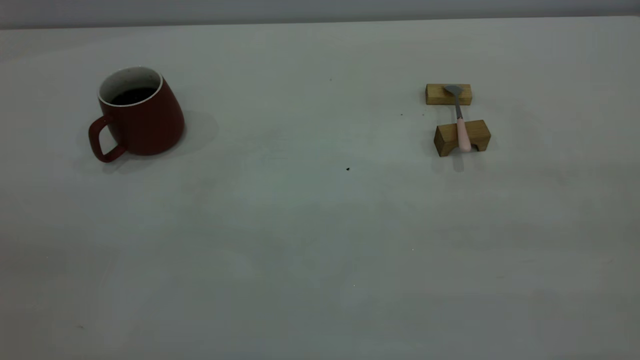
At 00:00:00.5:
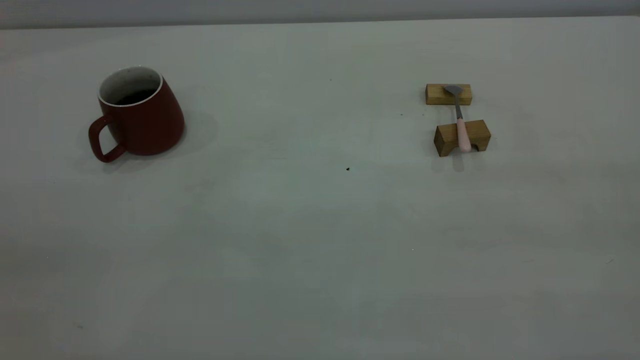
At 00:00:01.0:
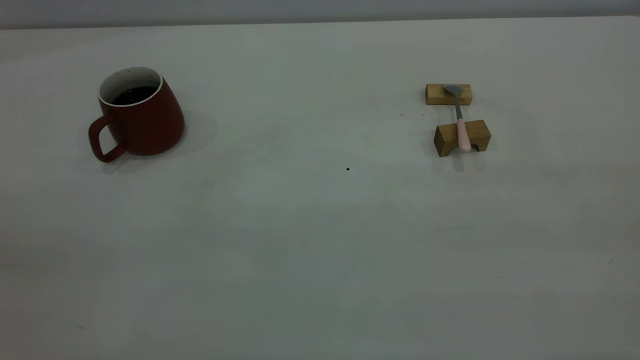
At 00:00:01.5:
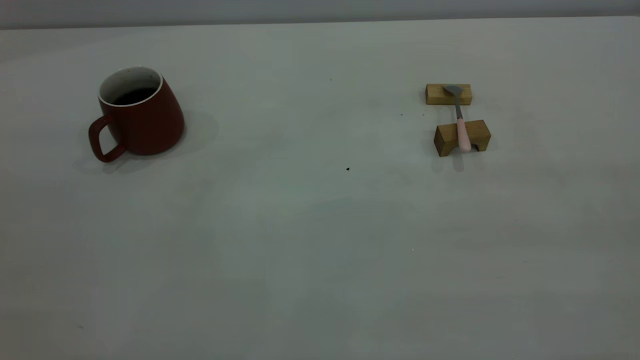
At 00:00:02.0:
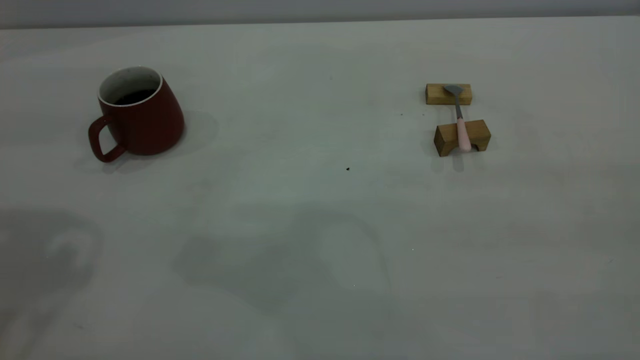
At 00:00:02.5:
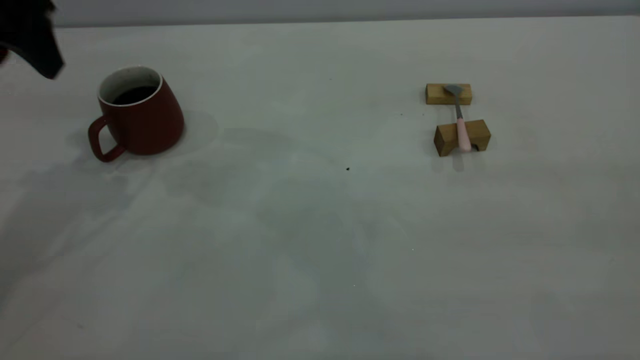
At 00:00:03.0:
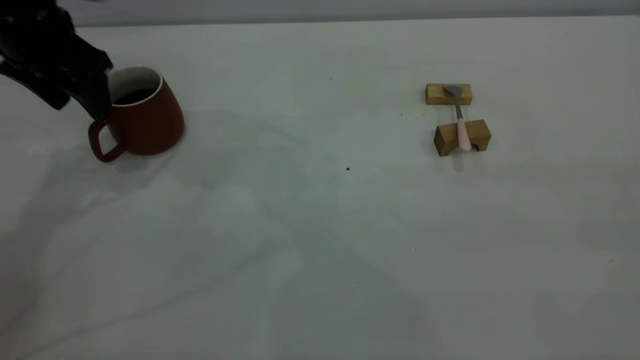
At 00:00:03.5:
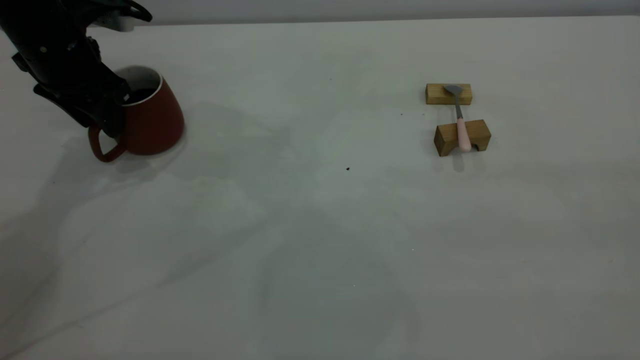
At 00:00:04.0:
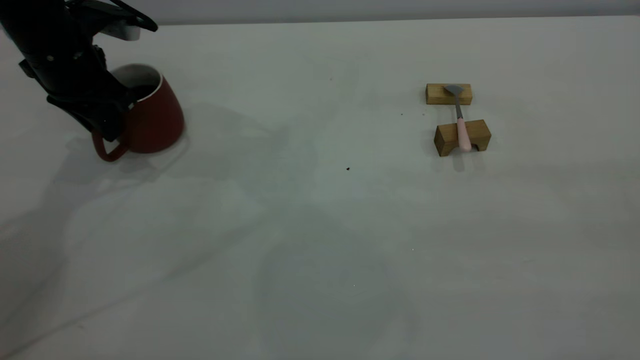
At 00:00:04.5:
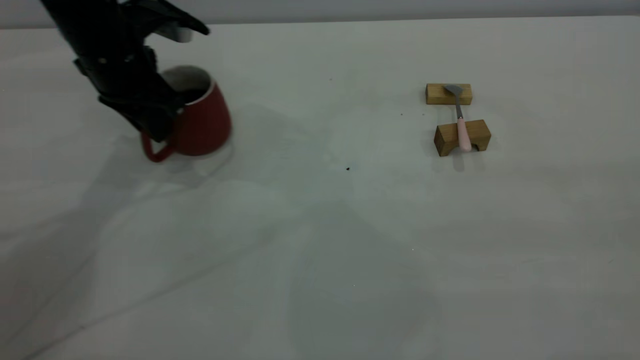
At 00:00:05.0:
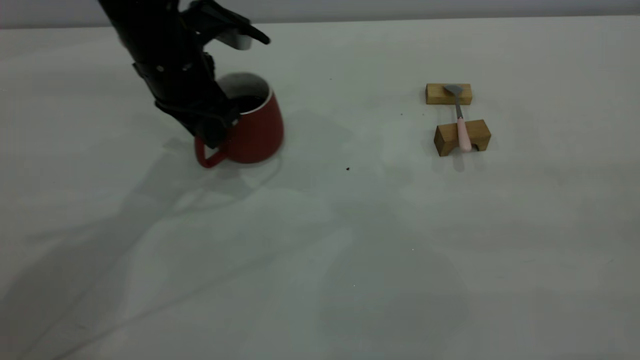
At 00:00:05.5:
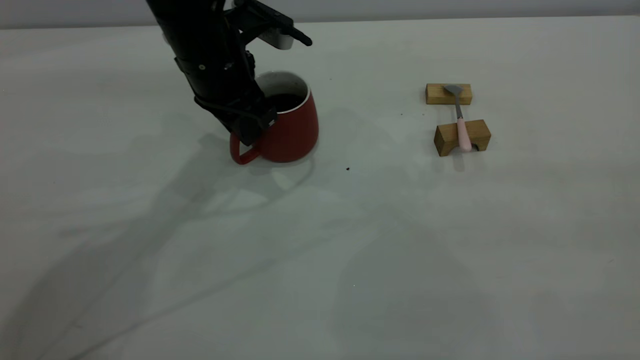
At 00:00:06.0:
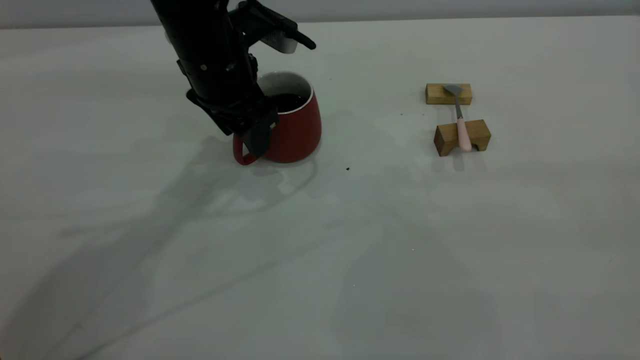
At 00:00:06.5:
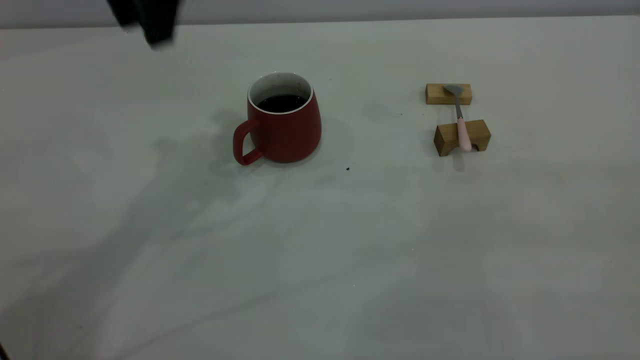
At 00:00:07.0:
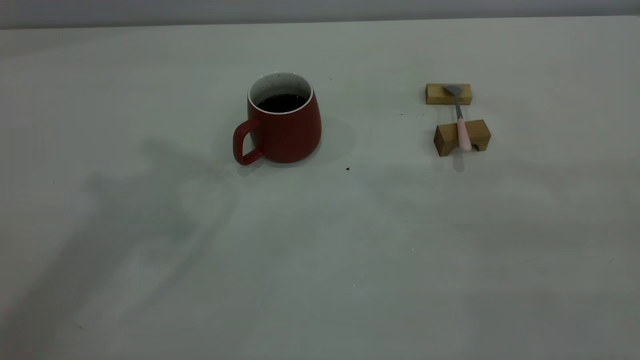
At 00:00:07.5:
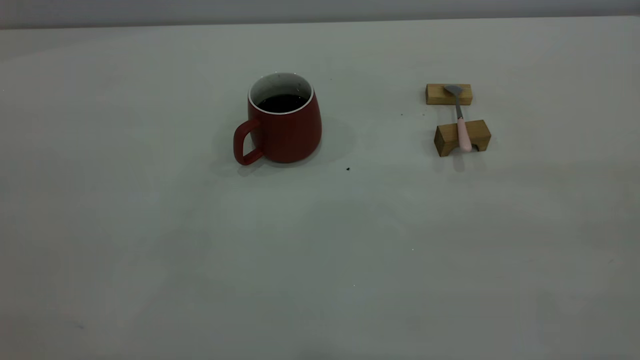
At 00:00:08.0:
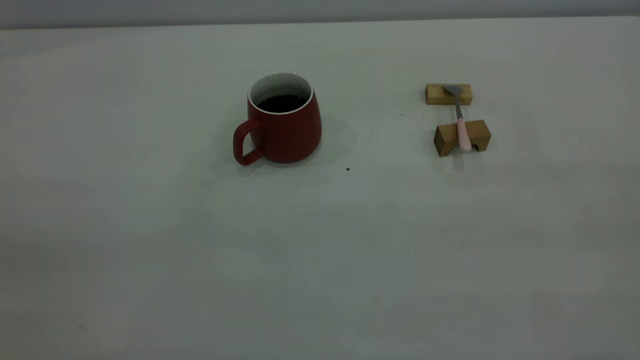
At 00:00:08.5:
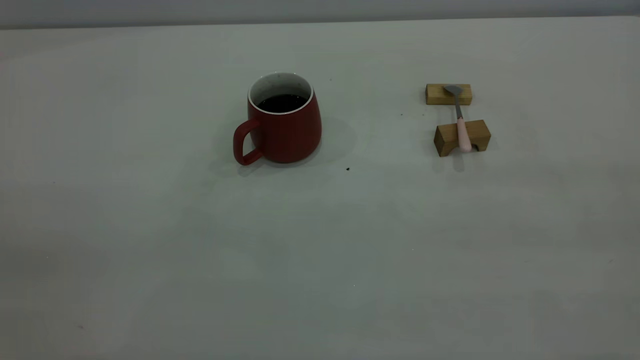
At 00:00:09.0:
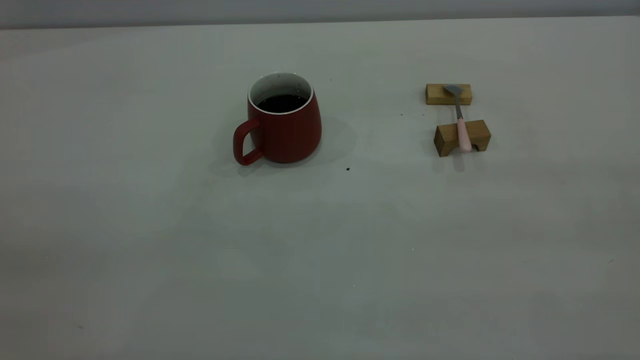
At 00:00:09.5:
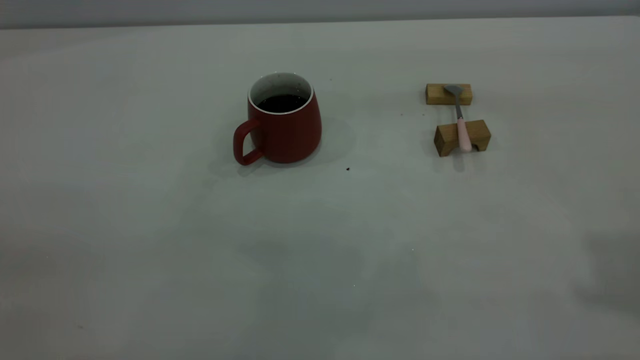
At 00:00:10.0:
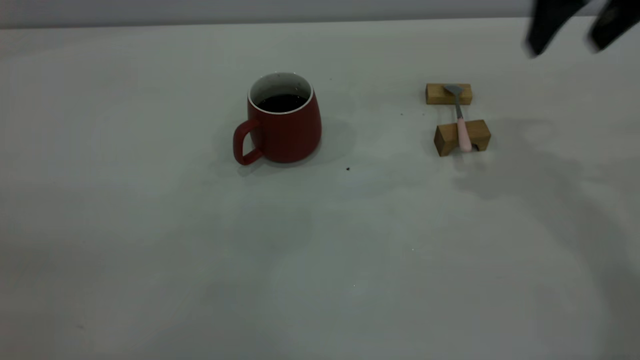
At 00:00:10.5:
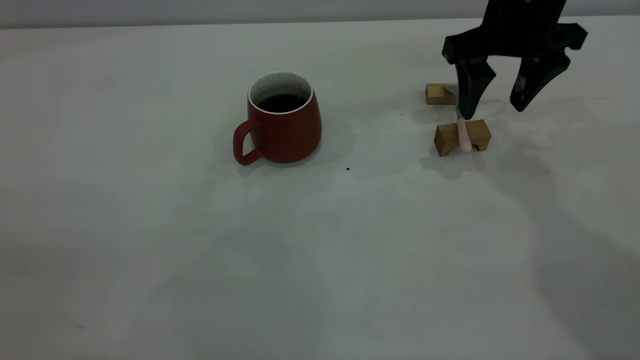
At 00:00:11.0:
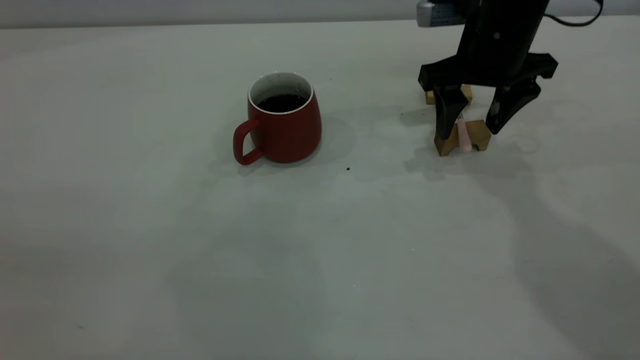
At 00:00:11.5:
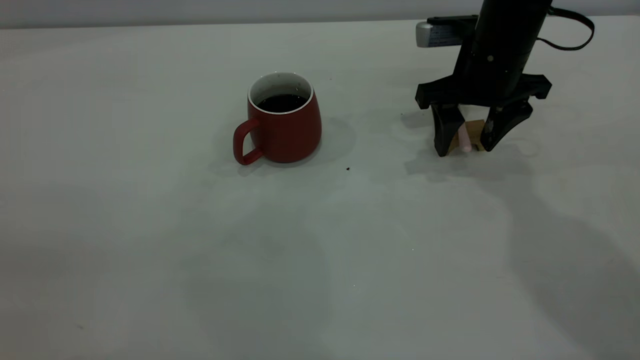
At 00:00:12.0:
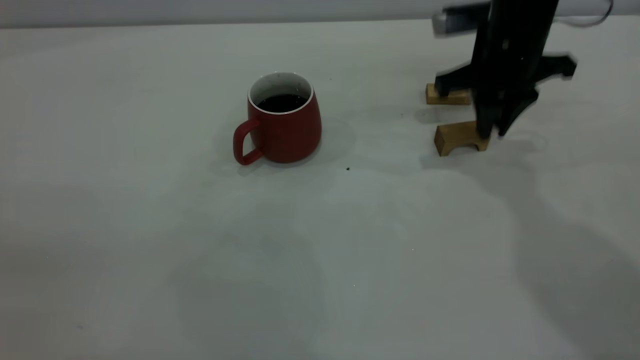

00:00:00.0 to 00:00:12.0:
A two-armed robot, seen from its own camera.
Step, 00:00:00.0 to 00:00:06.0: Move the cup with coffee to the center of view.
Step, 00:00:06.5 to 00:00:12.0: Pick up the spoon.
00:00:02.0 to 00:00:04.0: The left gripper travels downward and forward by approximately 25 cm, and closes up.
00:00:04.0 to 00:00:06.0: The left gripper is displaced to the right by some 15 cm, and opens up.
00:00:06.0 to 00:00:08.0: The left gripper is displaced backward, upward and to the left by approximately 50 cm, and closes up.
00:00:08.0 to 00:00:10.0: The right gripper shifts some 35 cm forward, and opens its fingers.
00:00:10.0 to 00:00:12.0: The right gripper moves downward, some 10 cm, and closes up.

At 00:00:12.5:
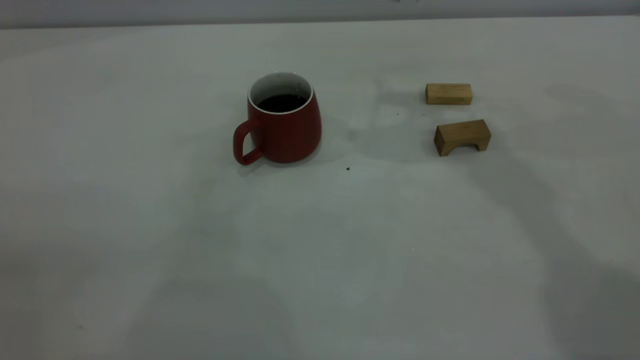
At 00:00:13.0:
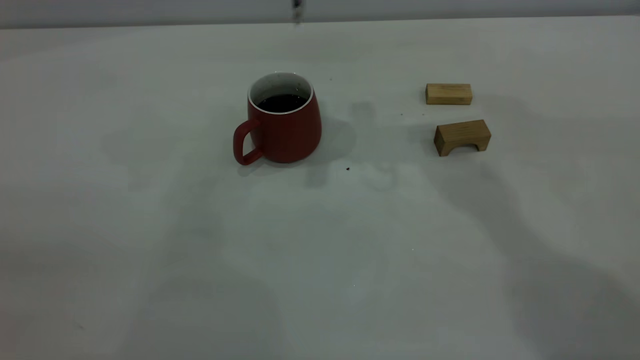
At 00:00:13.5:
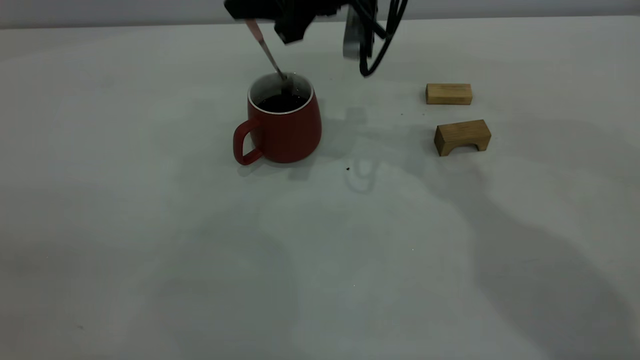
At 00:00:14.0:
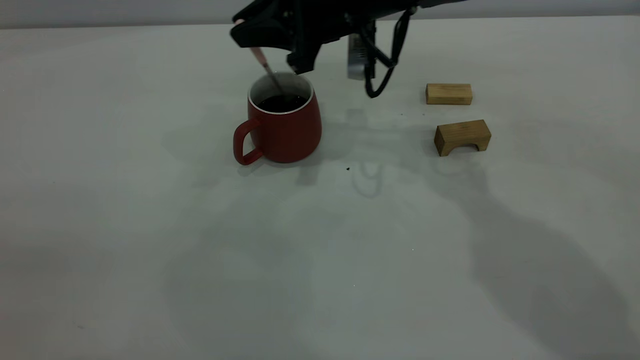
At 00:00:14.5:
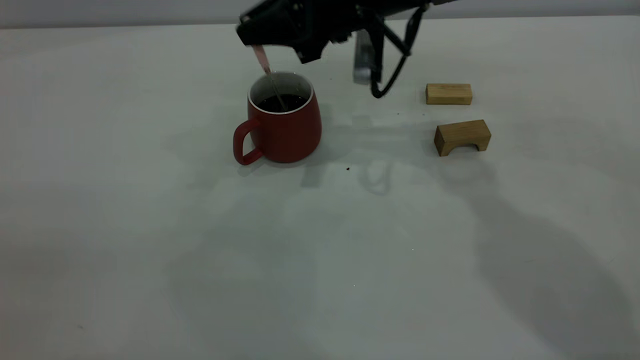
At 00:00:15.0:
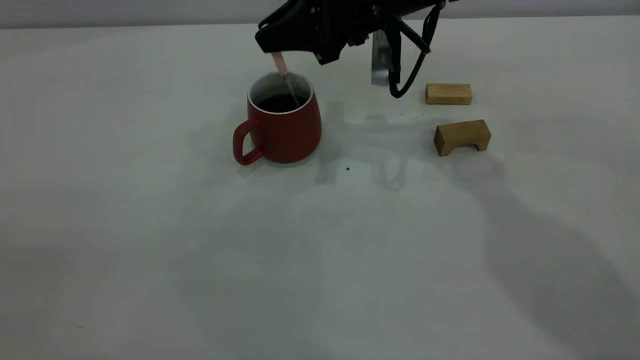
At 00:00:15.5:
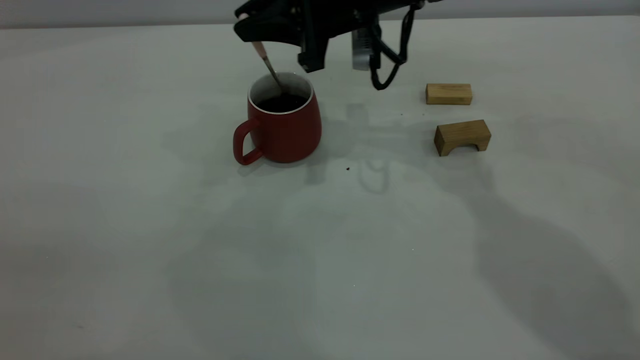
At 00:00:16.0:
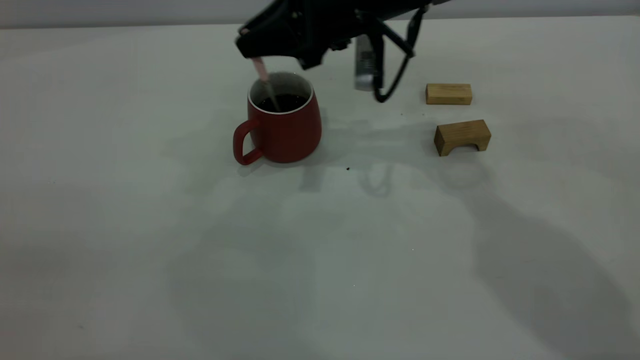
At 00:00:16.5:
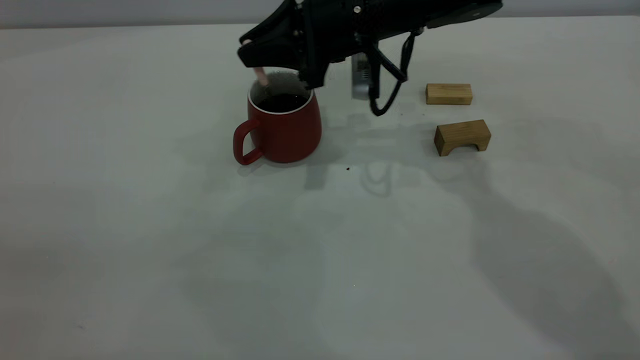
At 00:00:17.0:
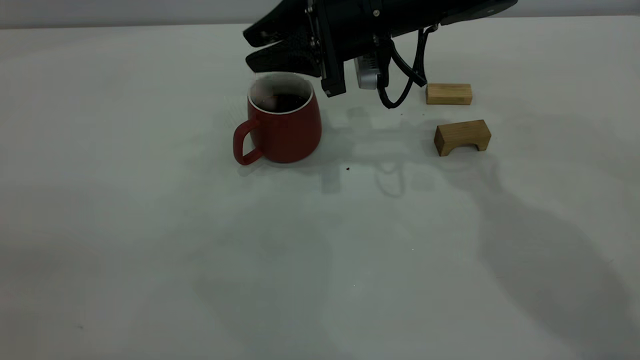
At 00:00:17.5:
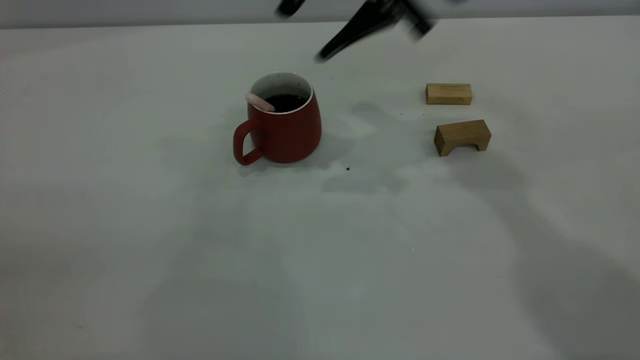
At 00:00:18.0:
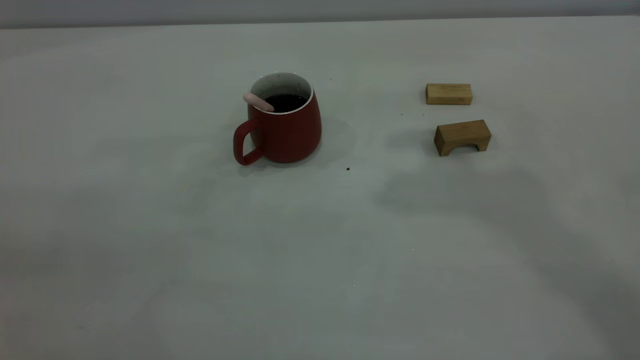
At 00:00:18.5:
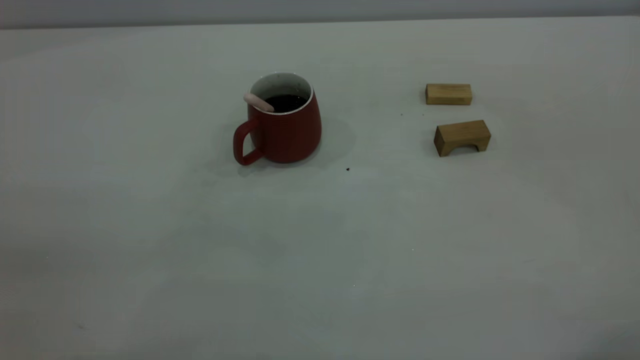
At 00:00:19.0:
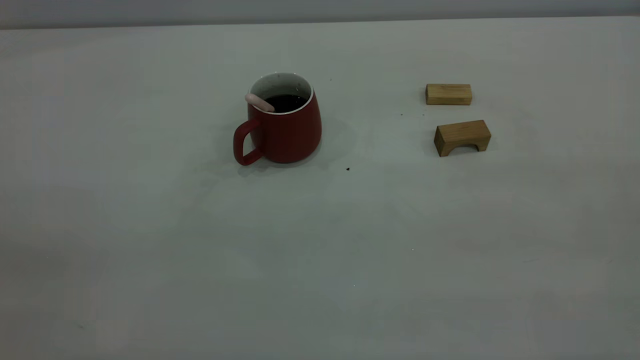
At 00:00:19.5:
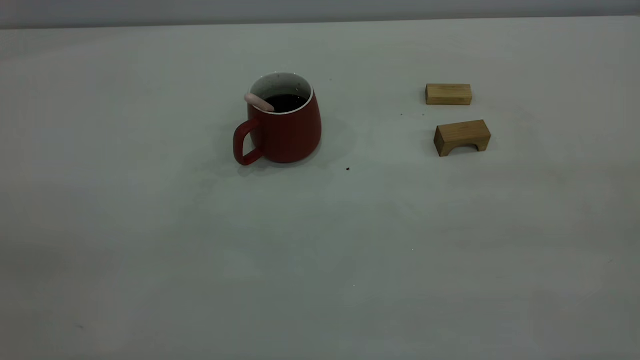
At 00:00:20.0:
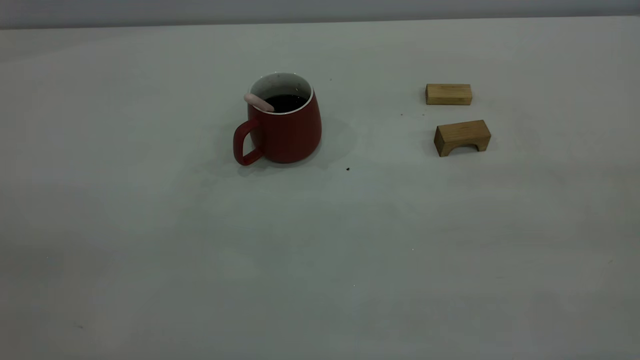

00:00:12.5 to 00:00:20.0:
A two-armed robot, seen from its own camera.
Step, 00:00:12.5 to 00:00:16.5: Stir the coffee in the cup.
00:00:12.5 to 00:00:14.5: The right gripper shifts approximately 15 cm downward and to the left.
00:00:14.5 to 00:00:16.5: The grippers make only small movements.
00:00:16.5 to 00:00:18.0: The right gripper is displaced upward and backward by roughly 35 cm, and opens up.
